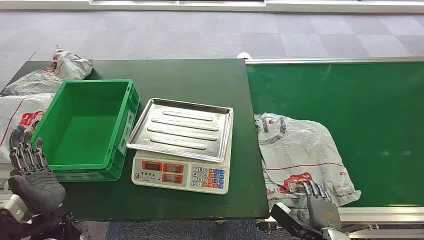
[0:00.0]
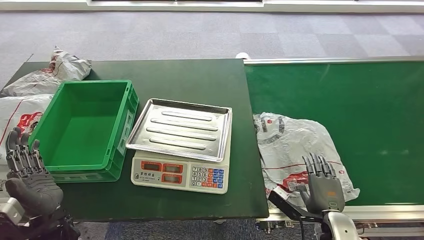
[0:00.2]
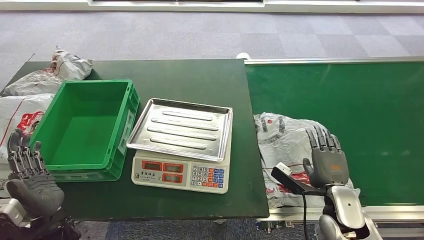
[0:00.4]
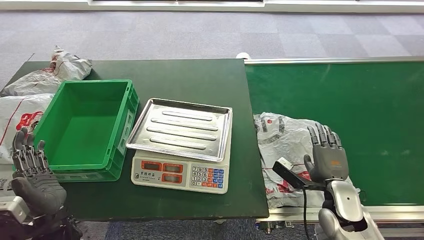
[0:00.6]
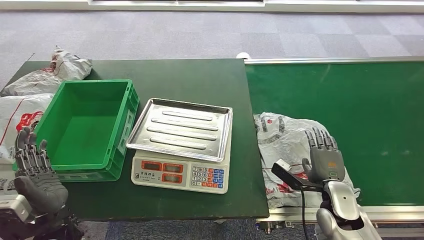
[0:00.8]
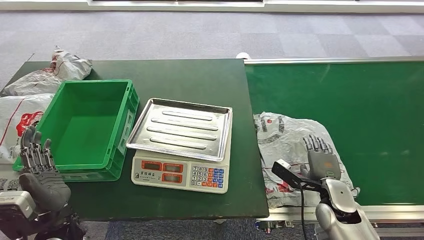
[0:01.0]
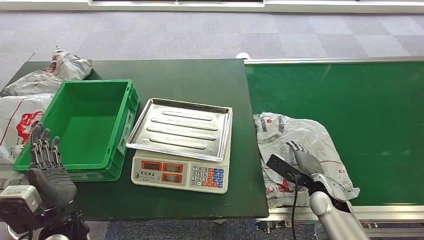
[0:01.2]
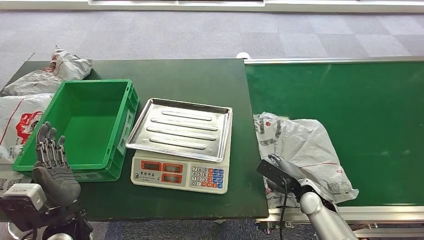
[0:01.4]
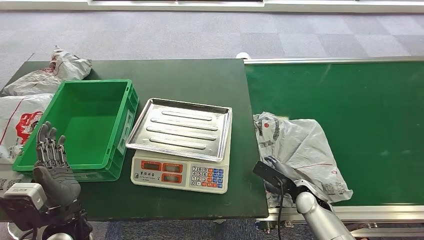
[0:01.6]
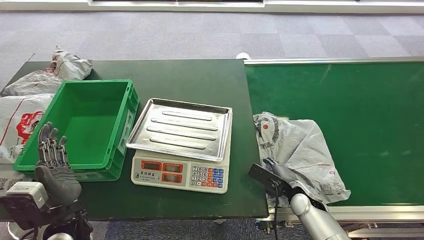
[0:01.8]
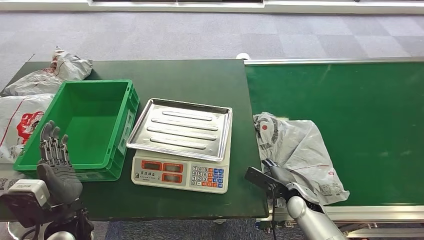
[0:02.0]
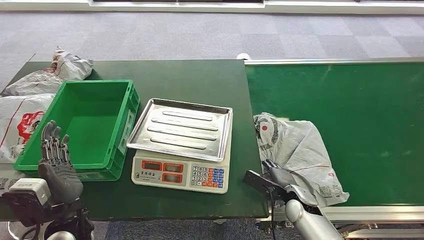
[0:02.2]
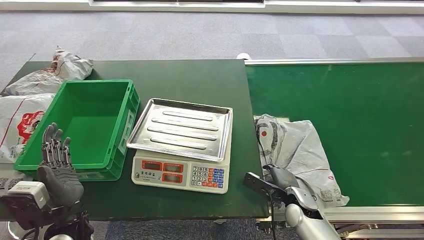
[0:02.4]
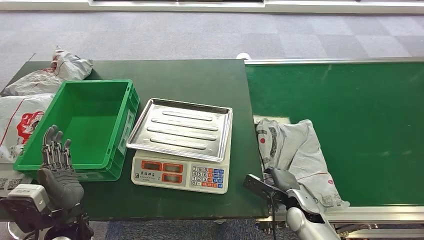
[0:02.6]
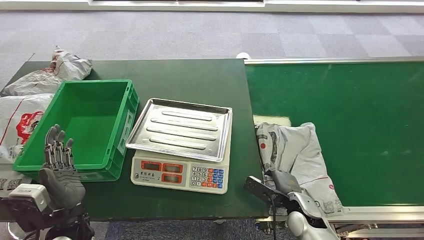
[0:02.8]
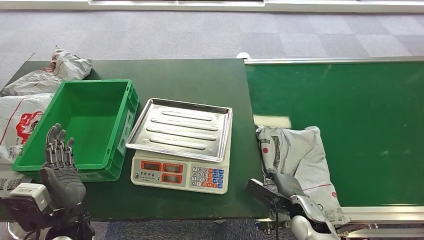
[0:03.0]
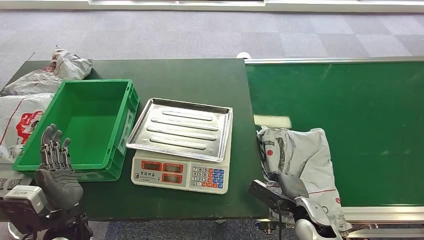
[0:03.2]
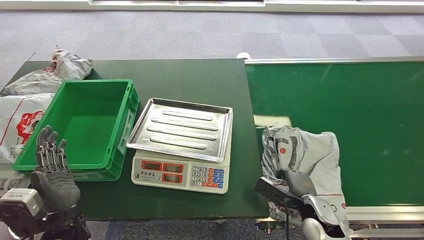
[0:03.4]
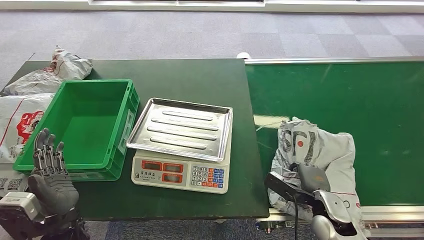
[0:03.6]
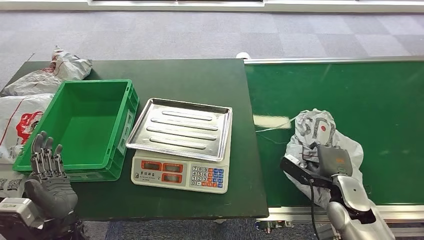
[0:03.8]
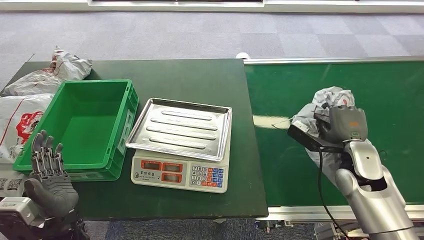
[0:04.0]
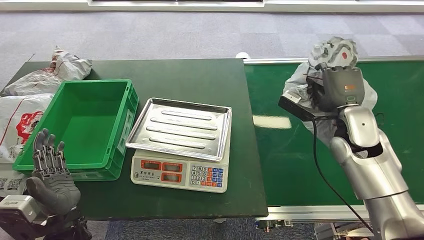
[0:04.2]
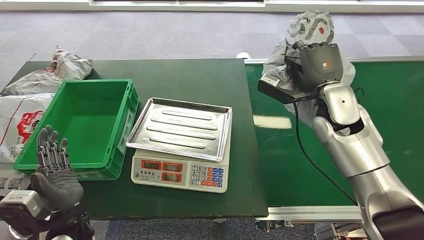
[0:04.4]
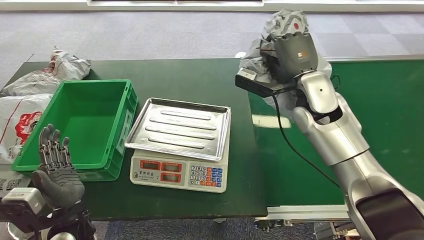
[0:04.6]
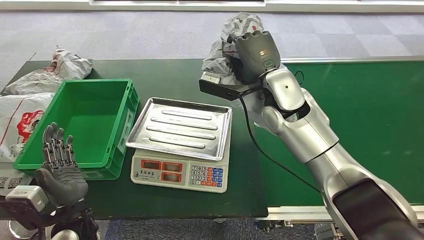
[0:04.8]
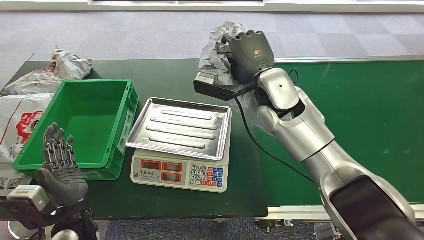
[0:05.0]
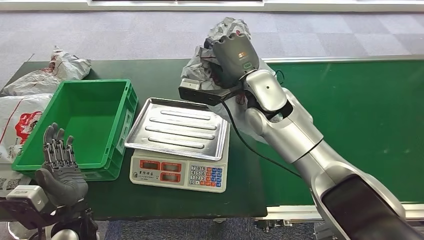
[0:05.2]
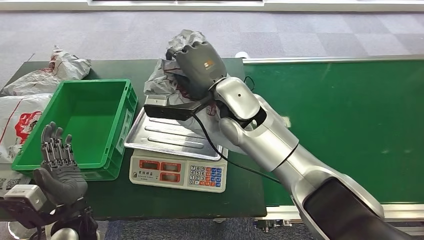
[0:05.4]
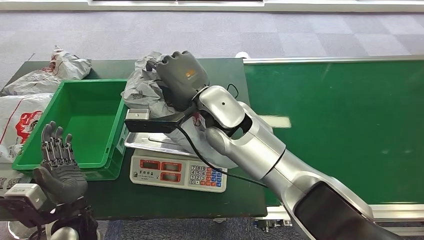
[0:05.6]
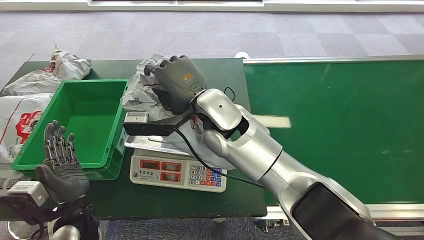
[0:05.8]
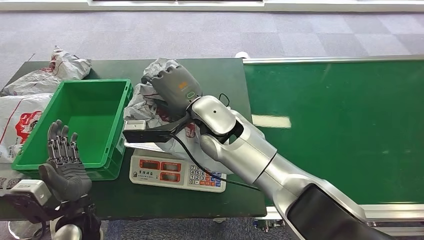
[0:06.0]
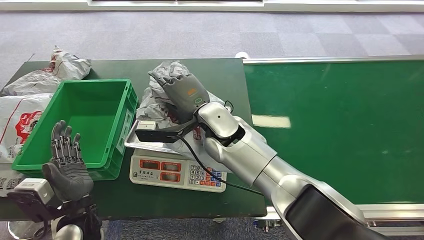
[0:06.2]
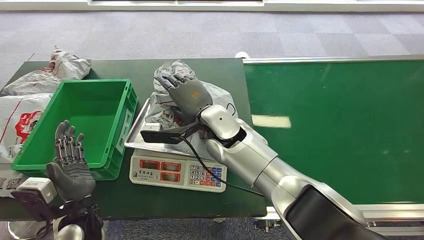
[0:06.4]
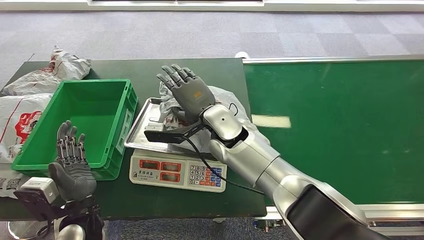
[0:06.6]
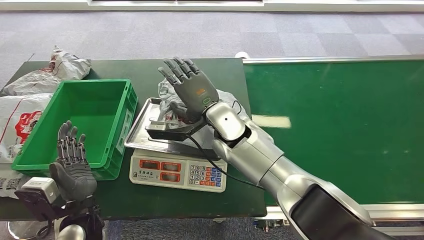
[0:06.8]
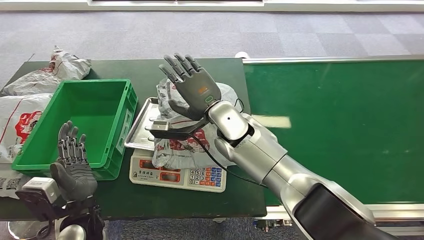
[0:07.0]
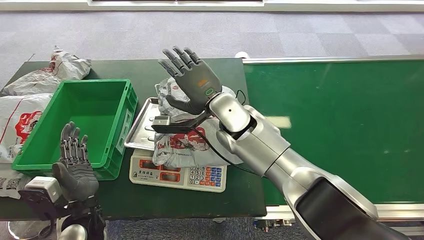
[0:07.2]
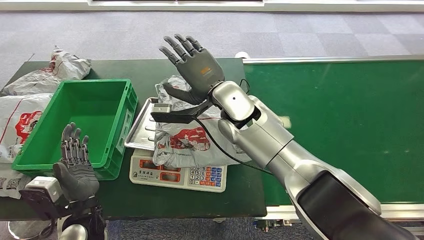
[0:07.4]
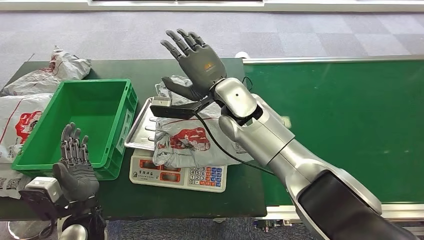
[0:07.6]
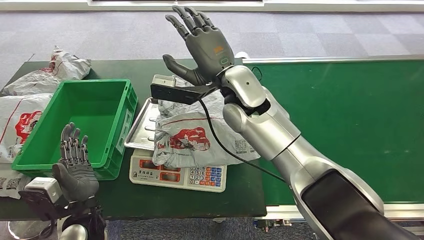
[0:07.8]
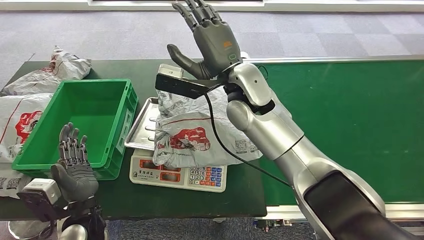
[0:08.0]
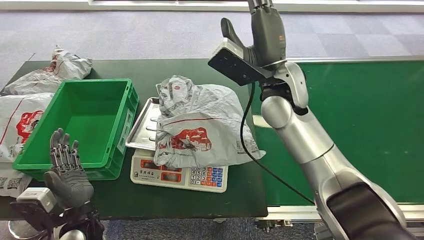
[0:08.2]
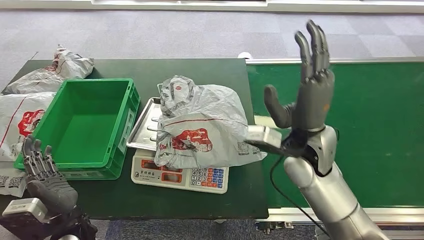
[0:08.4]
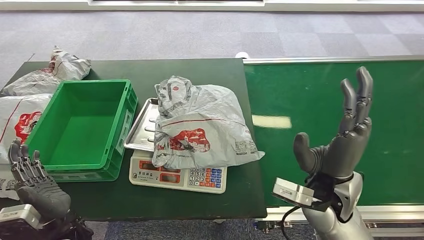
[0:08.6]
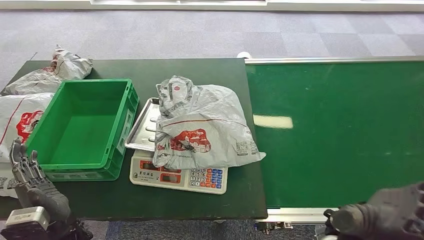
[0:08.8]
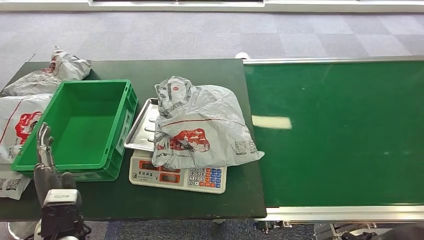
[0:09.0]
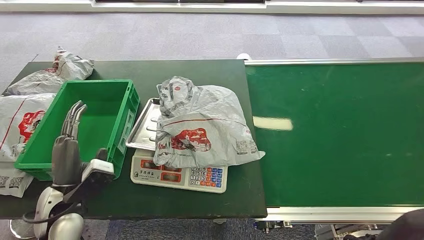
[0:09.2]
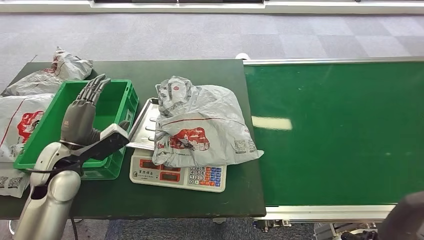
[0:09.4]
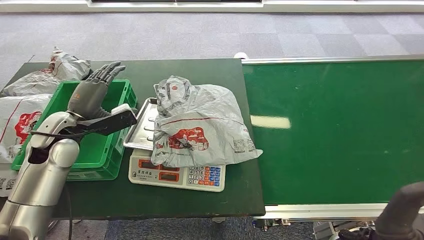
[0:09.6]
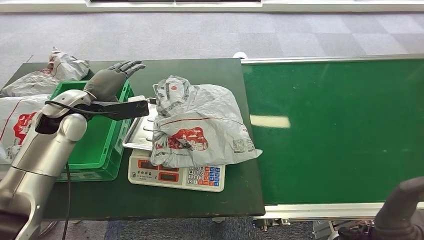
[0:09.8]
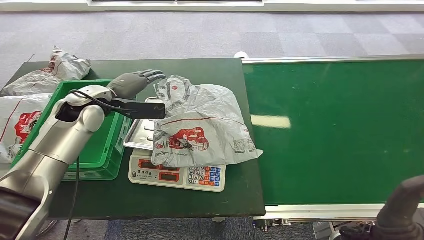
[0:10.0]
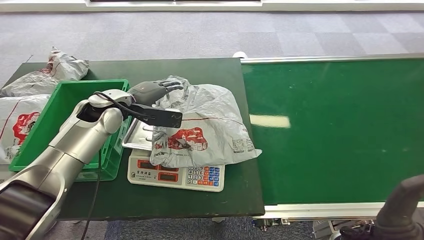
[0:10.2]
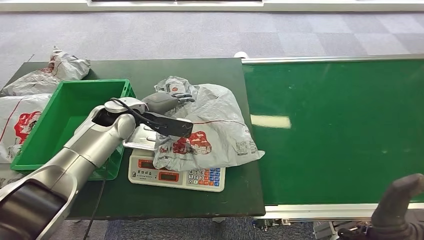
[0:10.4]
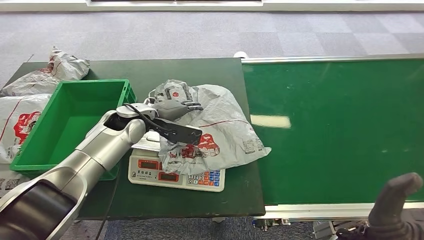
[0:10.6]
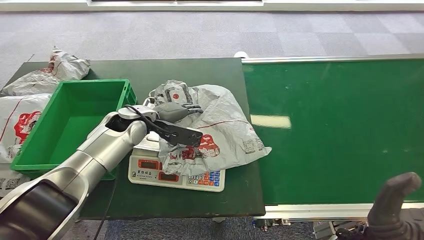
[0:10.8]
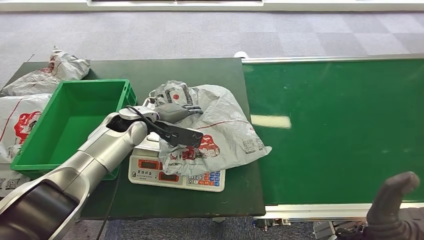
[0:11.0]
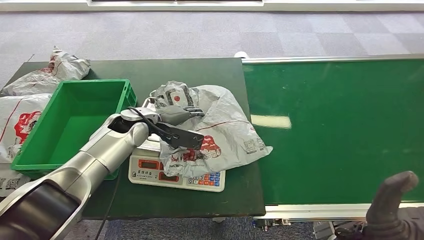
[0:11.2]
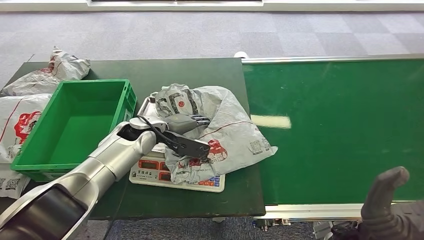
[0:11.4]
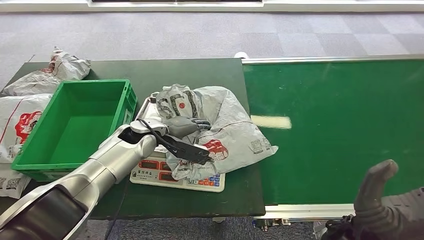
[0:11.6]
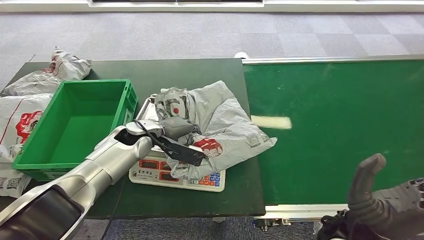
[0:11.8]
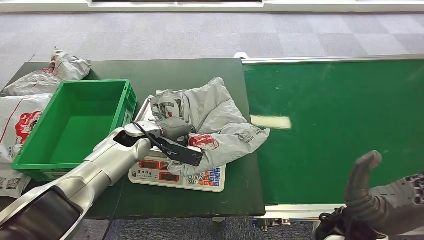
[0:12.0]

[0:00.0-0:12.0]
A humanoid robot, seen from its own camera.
Step, 0:00.0 to 0:04.6: Pick up the package from the conveyor belt.
Step, 0:04.8 to 0:08.0: Place the package onto the inbound machine.
0:01.6 to 0:03.0: The right hand ends up some 5 cm from where it was.
0:09.0 to 0:10.4: The left hand heads forward, covering roughly 25 cm.
0:10.4 to 0:12.0: The left hand goes roughly 5 cm downward.

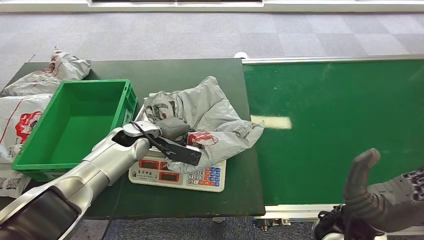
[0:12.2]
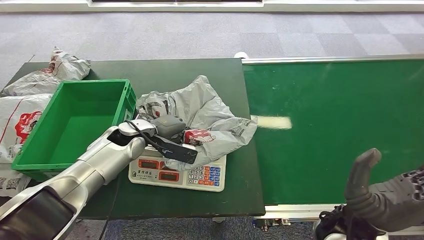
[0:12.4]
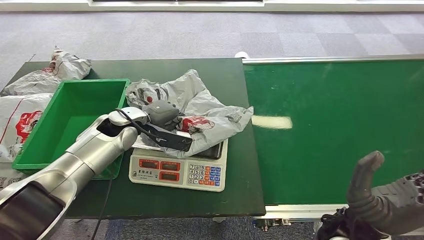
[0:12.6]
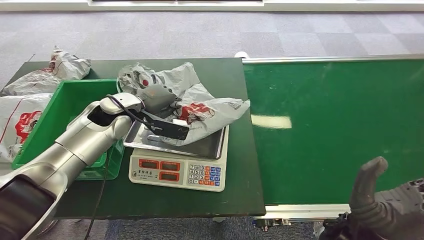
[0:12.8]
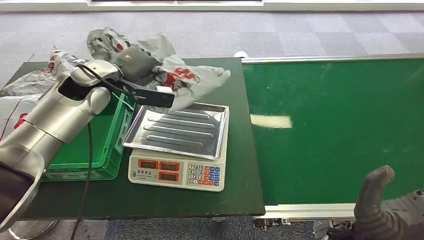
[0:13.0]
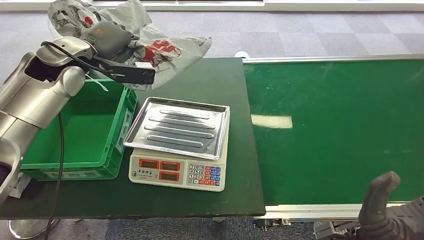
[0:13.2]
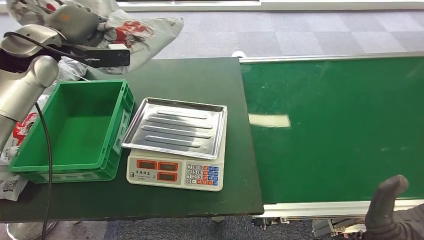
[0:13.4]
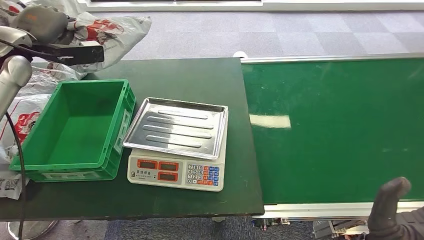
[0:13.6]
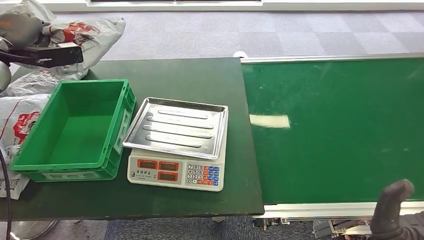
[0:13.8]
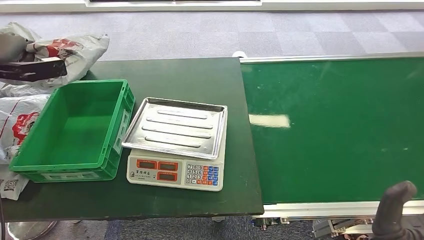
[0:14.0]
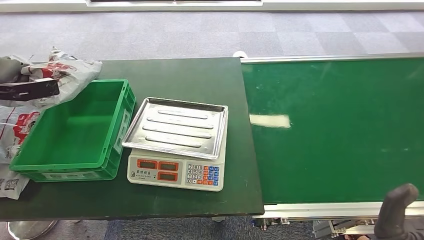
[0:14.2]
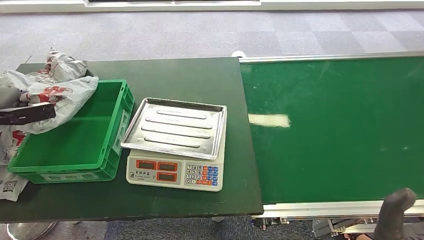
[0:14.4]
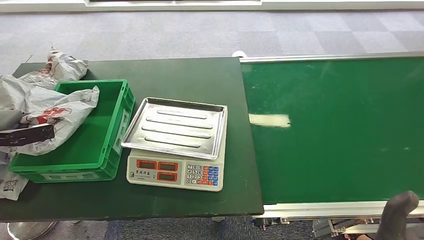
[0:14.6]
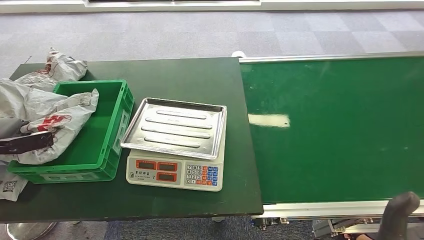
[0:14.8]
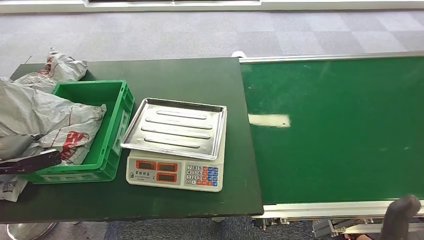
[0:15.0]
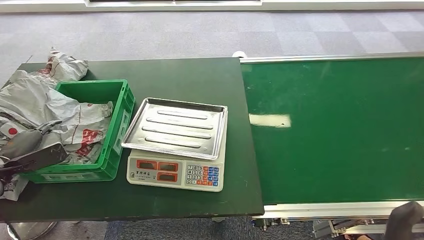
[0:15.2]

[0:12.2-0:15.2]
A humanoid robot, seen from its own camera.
Step, 0:13.6 to 0:15.2: Place the package into the parcel locker.
0:13.8 to 0:15.2: The left hand heads downward and backward, covering about 30 cm.

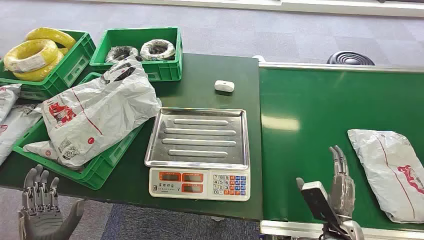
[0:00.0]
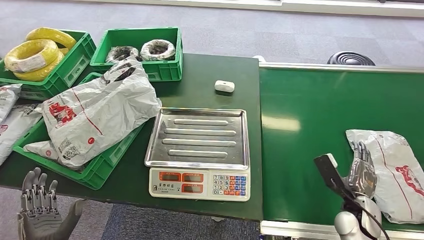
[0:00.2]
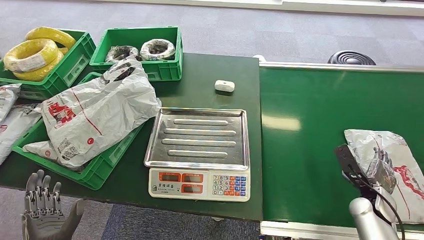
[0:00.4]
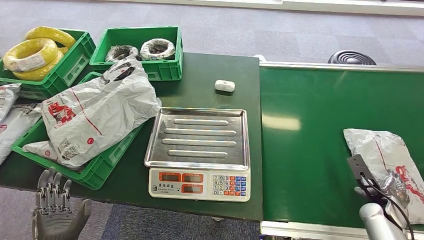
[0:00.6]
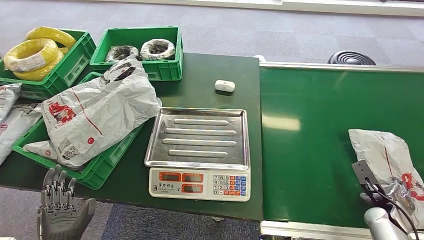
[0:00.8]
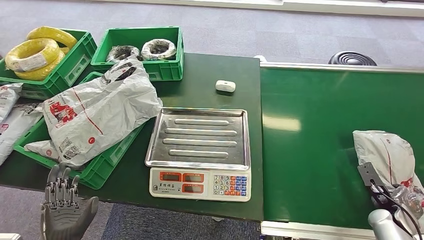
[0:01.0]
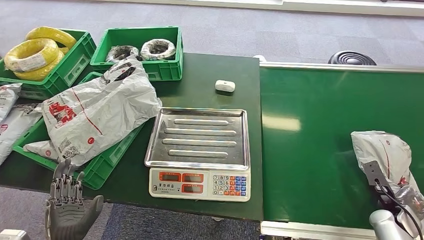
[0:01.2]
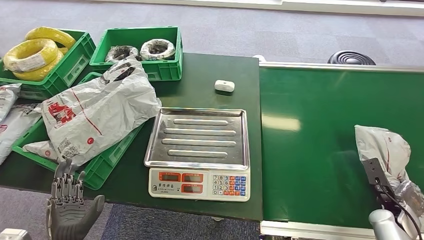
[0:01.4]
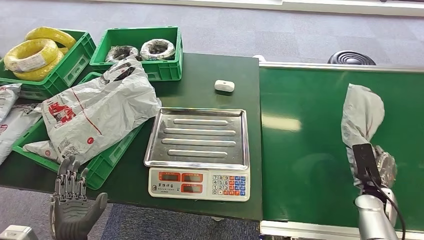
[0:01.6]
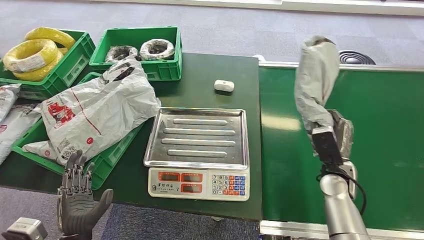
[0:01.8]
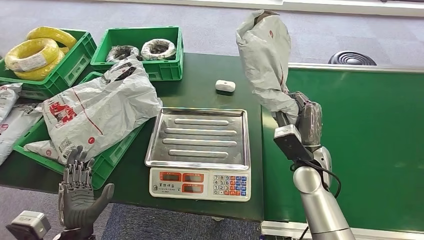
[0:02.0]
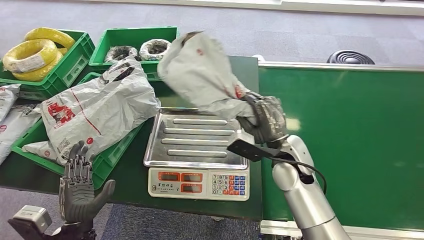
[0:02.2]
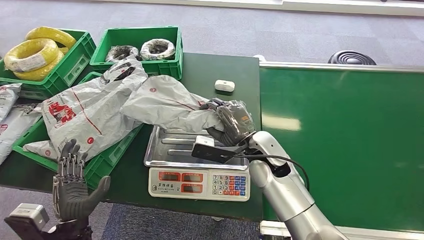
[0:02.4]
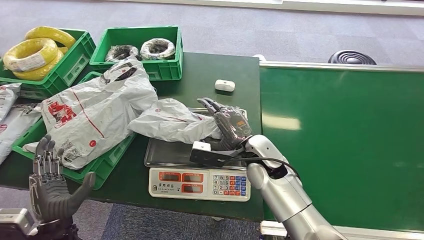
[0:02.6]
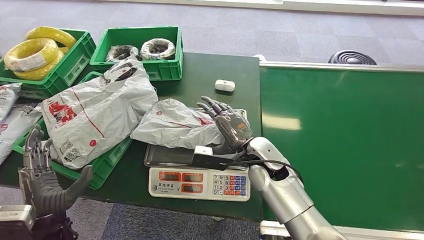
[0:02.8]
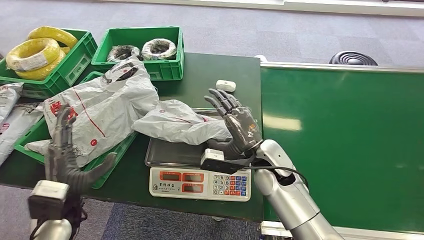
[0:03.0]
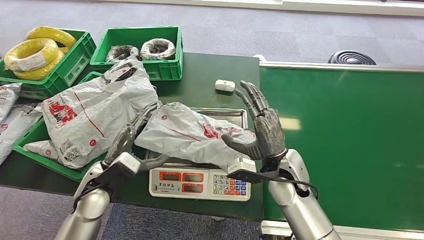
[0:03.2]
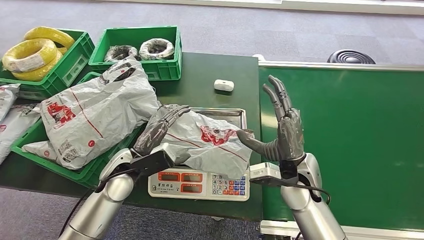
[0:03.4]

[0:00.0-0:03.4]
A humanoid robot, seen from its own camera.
Step, 0:00.0 to 0:01.8: Pick up the package from the conveyor belt.
Step, 0:02.0 to 0:03.2: Place the package onto the inbound machine.
